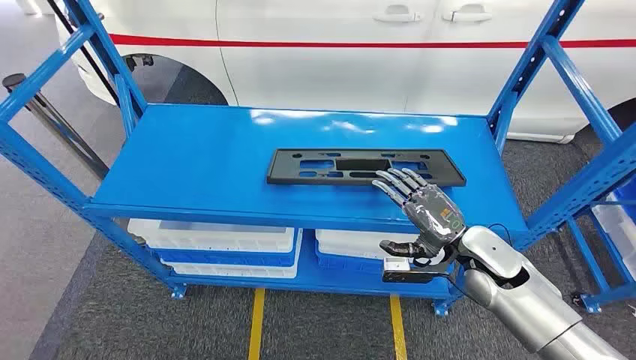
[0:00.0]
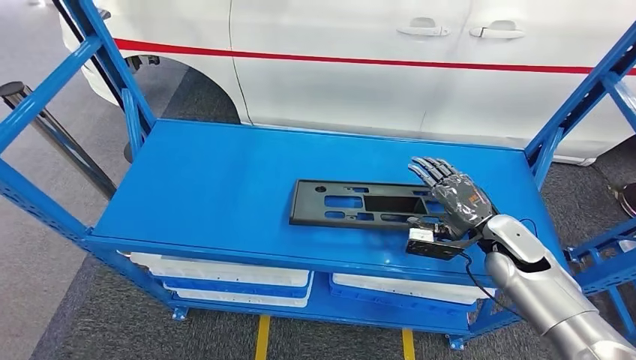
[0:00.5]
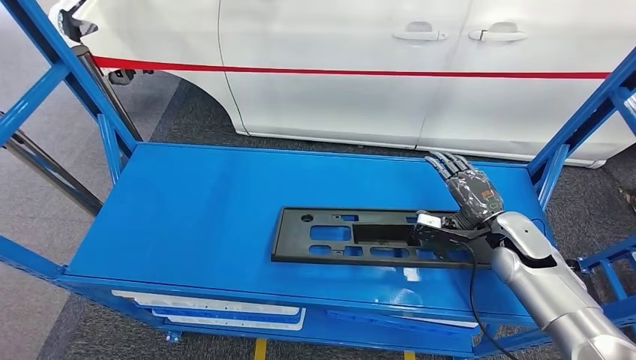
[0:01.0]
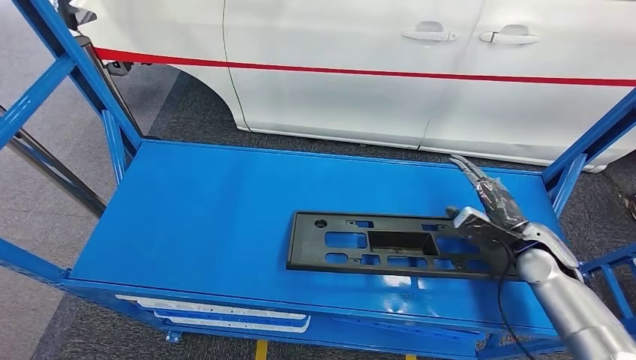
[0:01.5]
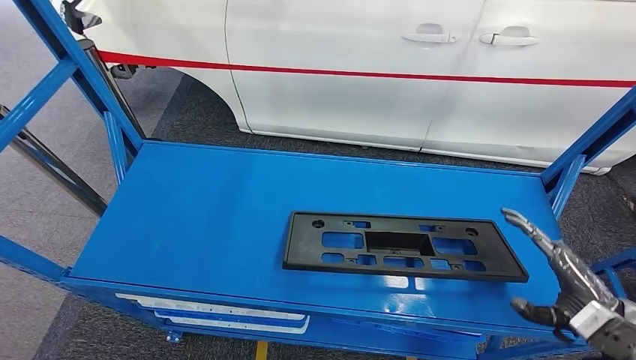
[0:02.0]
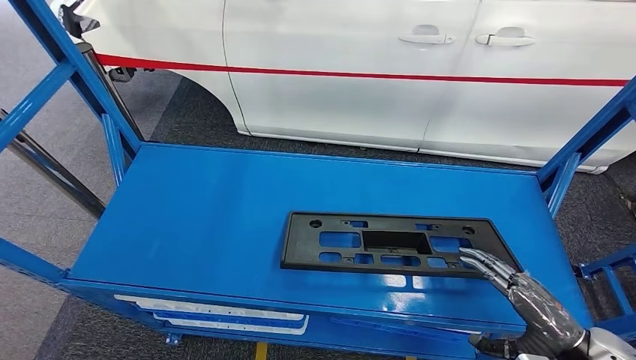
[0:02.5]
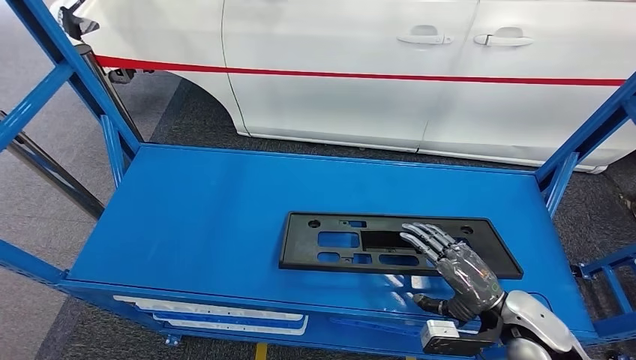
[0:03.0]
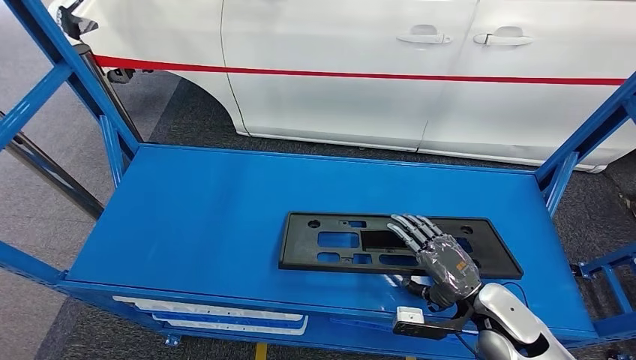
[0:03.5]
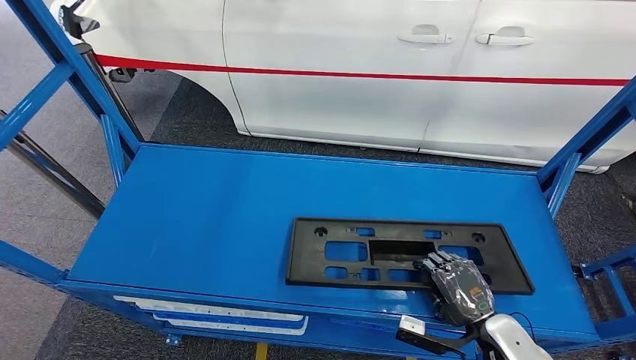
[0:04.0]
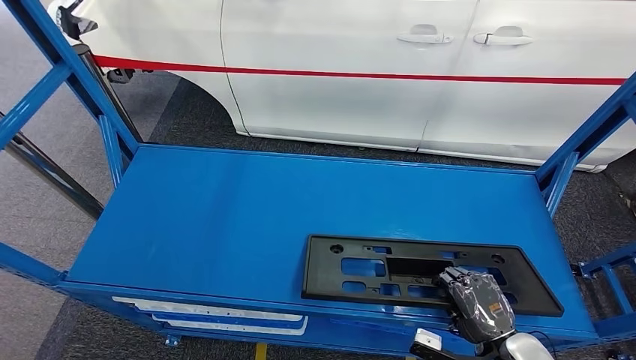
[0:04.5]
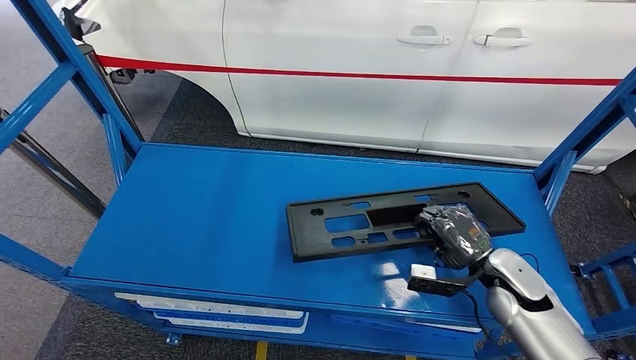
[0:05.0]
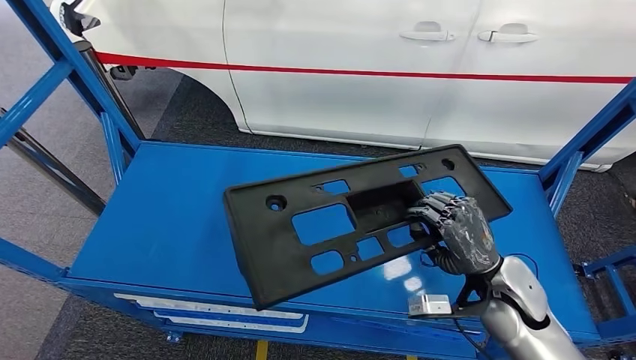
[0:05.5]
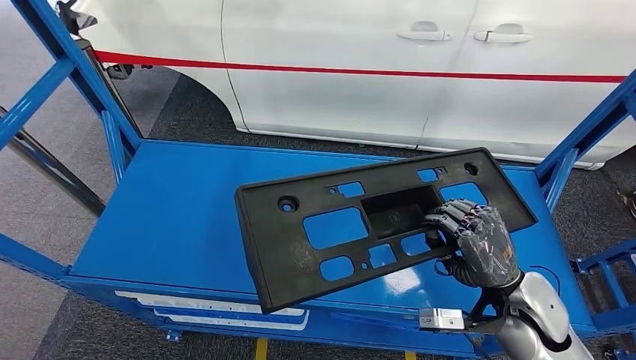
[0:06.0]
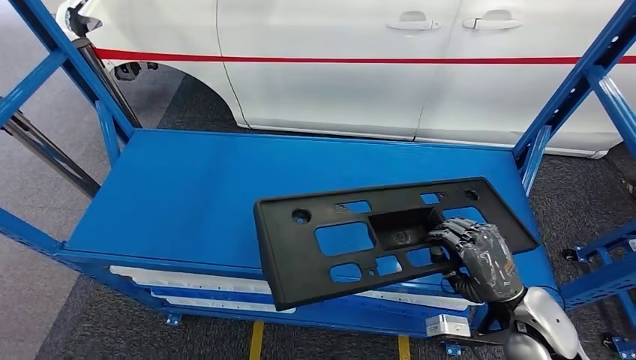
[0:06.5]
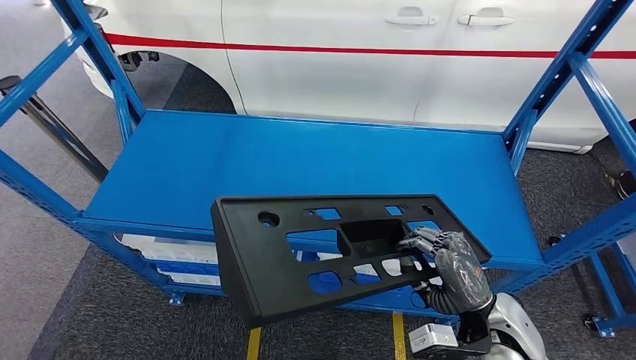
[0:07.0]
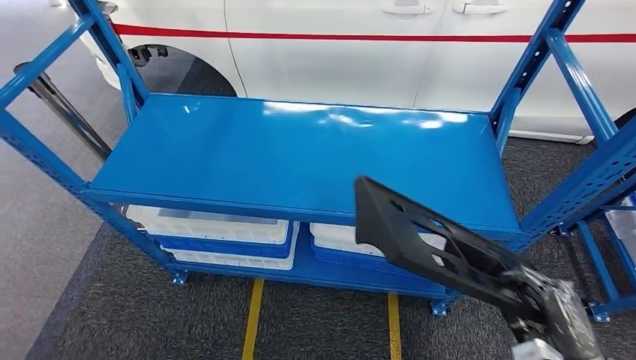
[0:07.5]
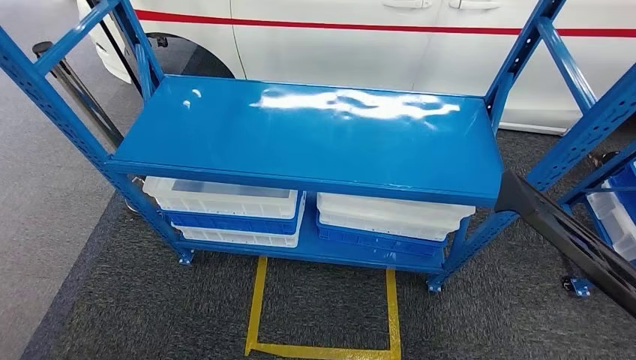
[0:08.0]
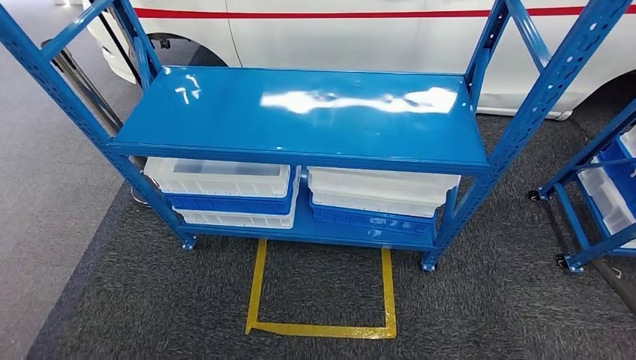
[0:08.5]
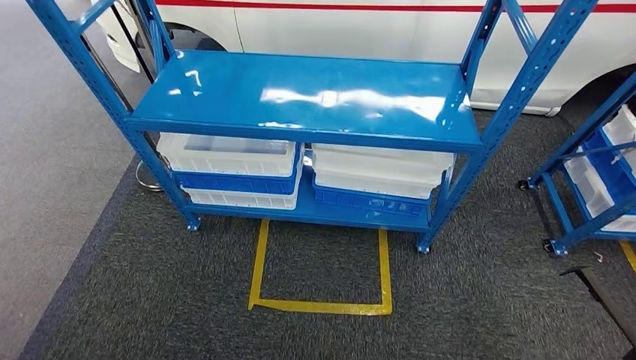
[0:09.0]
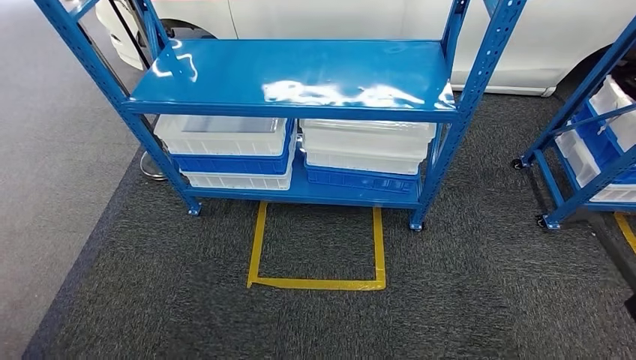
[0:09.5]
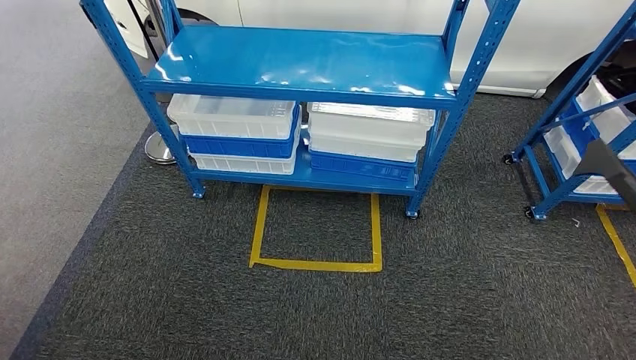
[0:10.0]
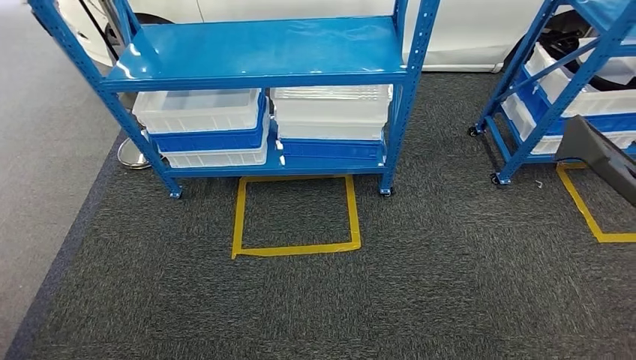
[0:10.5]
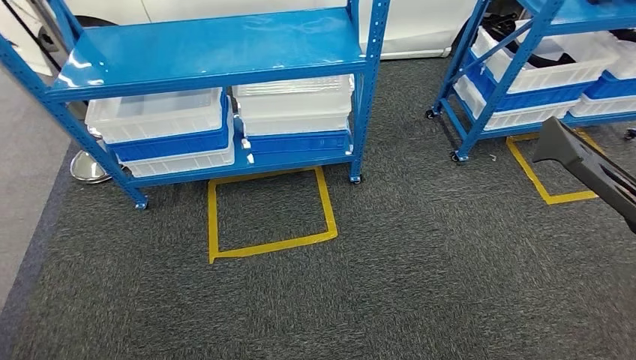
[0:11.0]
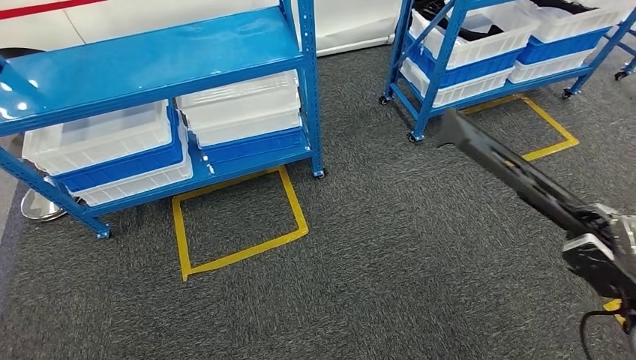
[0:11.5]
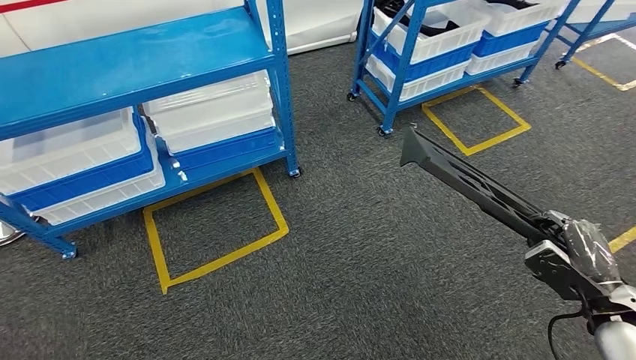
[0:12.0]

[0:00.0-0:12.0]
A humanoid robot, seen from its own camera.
Step, 0:00.0 to 0:07.0: Pick up the large material from the shelf.
0:02.0 to 0:04.0: The right hand goes approximately 15 cm to the left and downward.

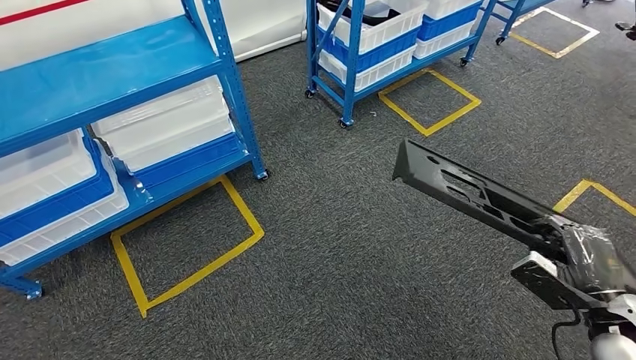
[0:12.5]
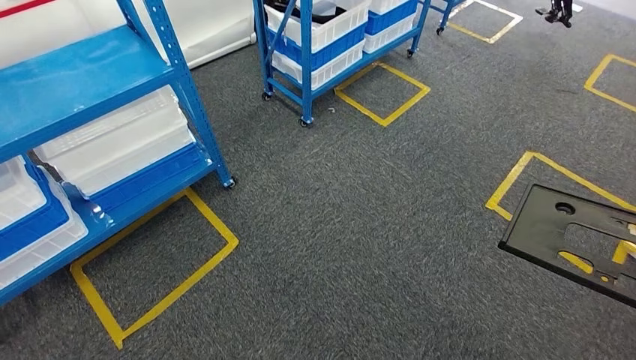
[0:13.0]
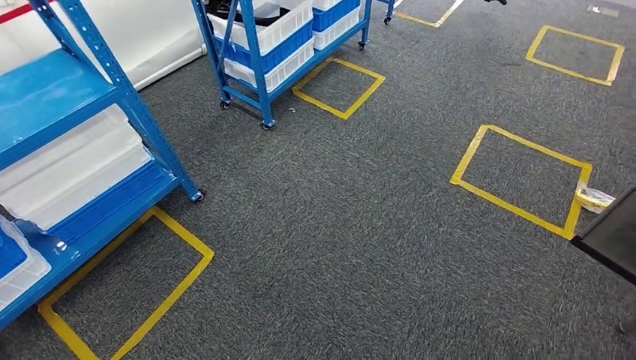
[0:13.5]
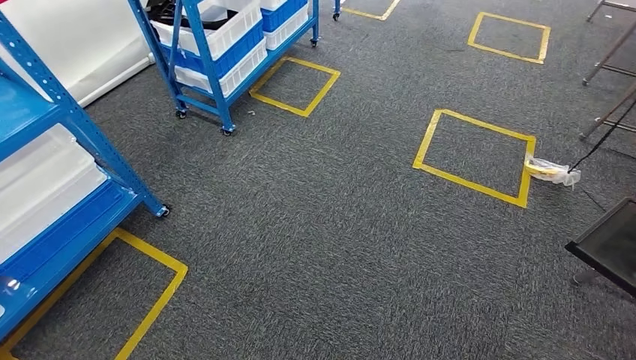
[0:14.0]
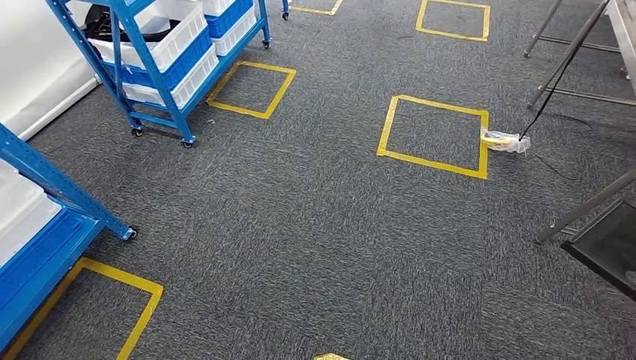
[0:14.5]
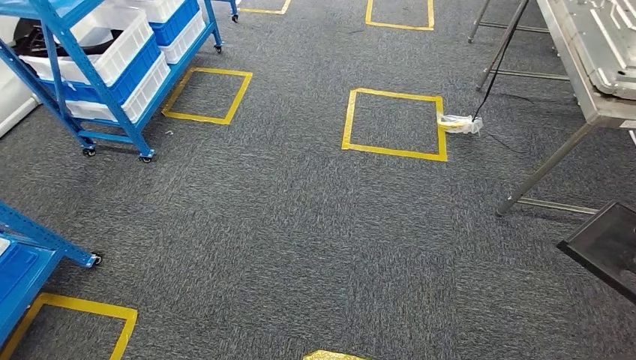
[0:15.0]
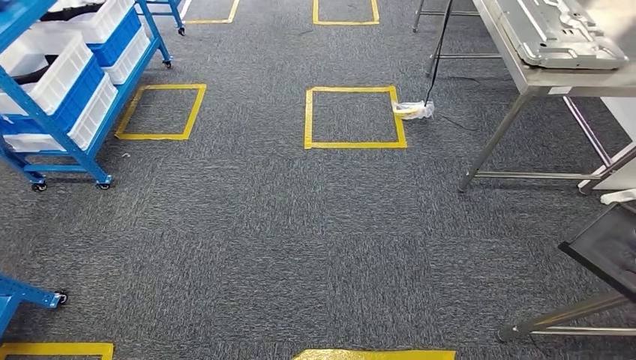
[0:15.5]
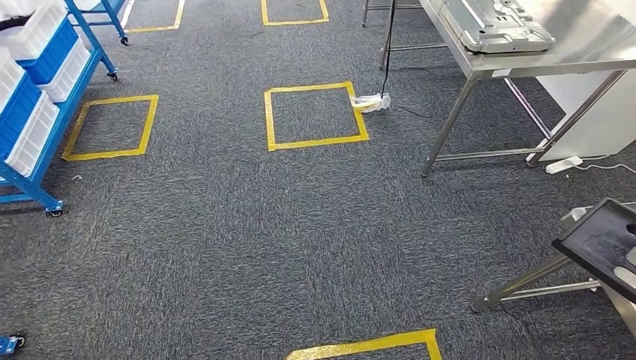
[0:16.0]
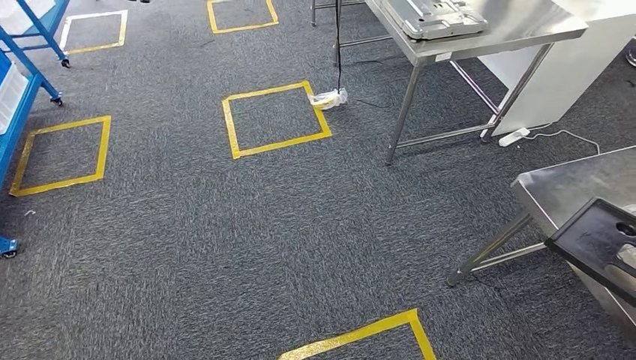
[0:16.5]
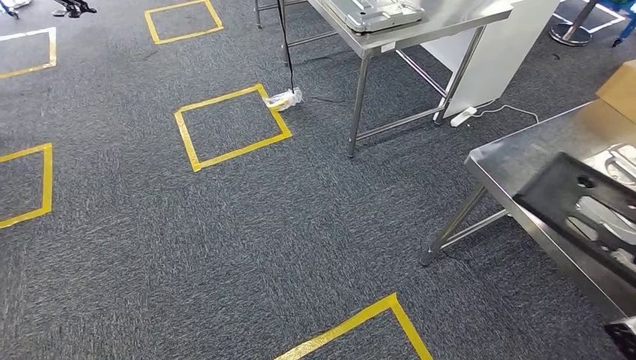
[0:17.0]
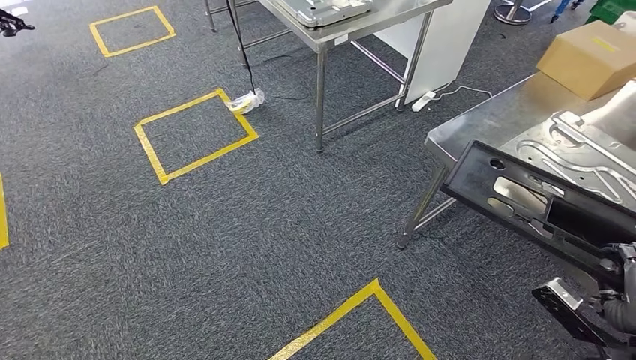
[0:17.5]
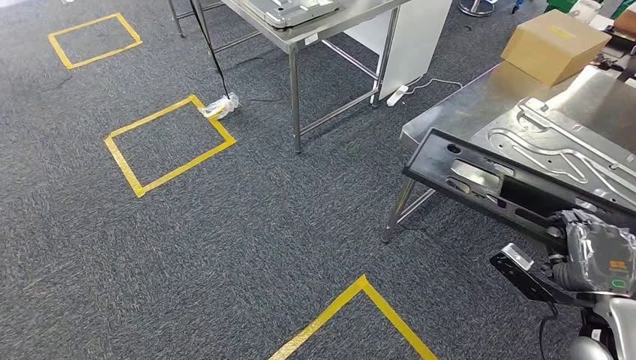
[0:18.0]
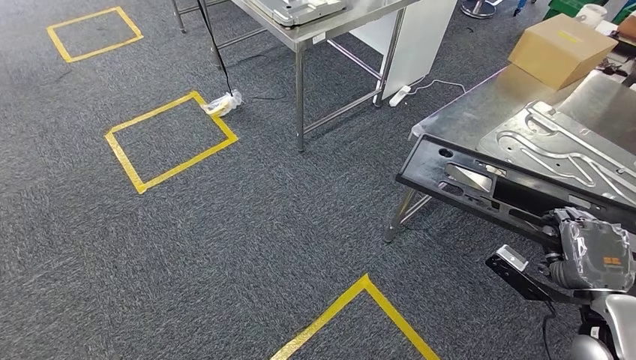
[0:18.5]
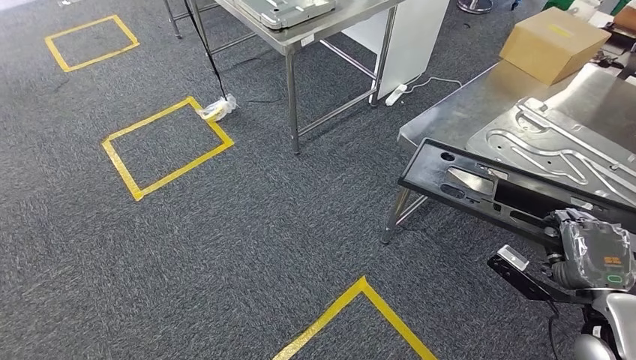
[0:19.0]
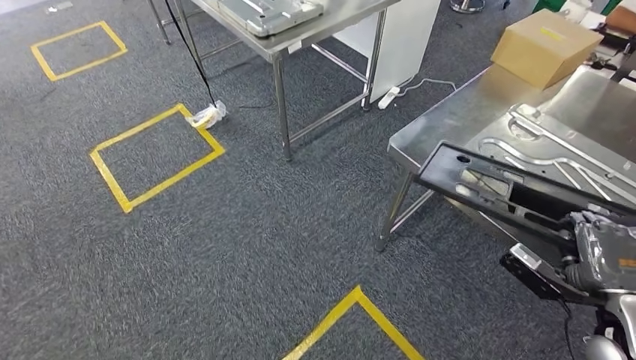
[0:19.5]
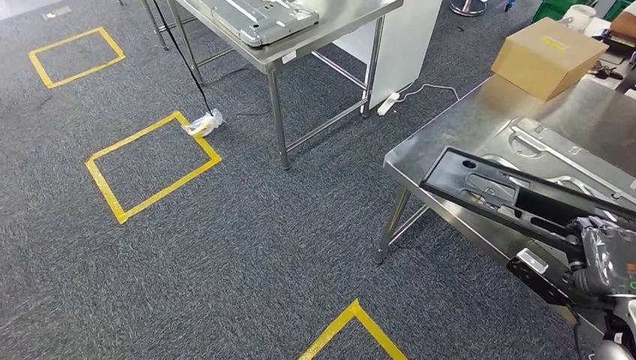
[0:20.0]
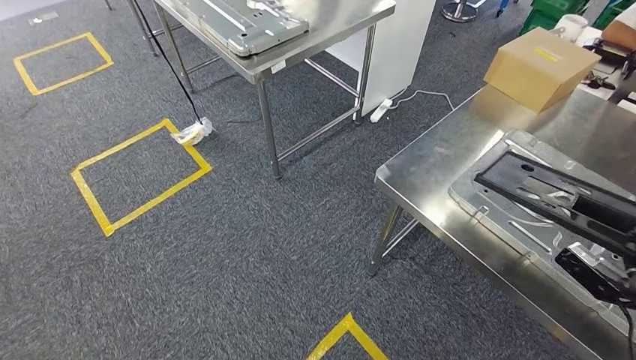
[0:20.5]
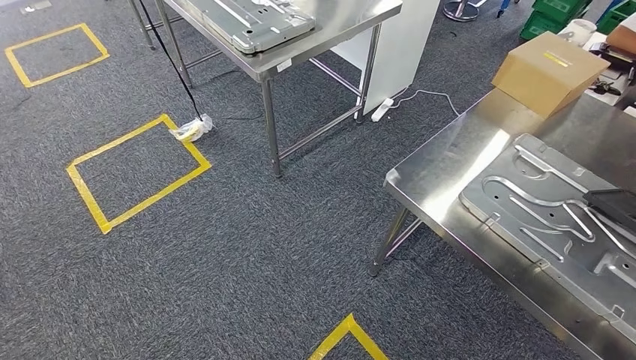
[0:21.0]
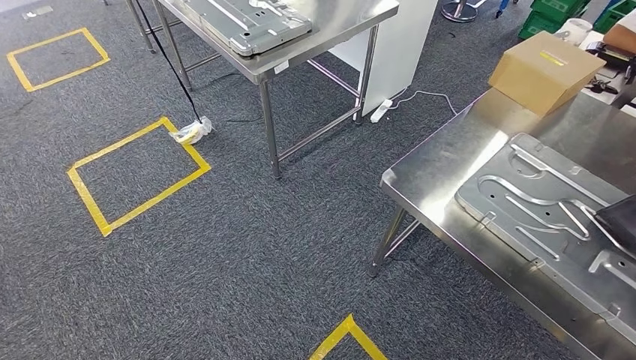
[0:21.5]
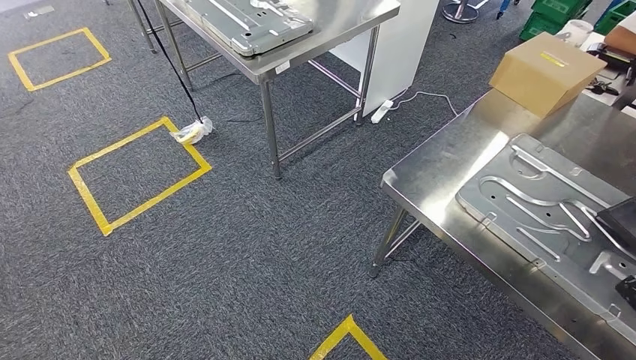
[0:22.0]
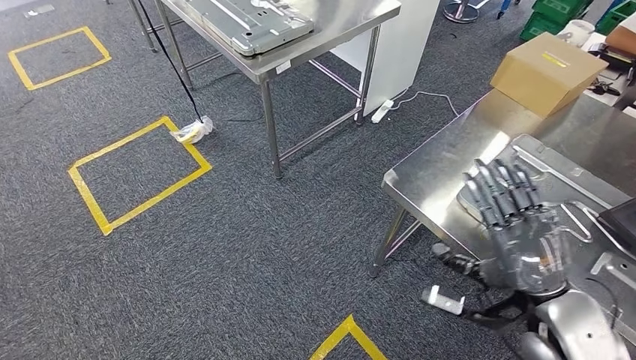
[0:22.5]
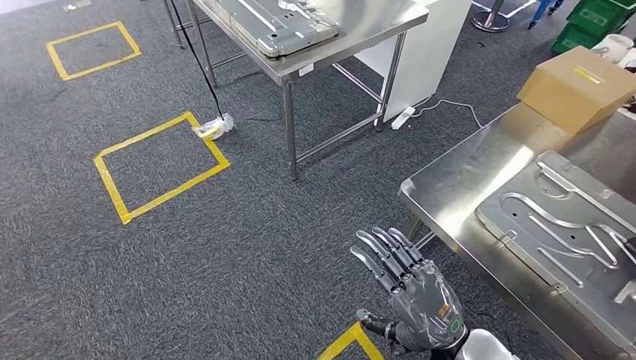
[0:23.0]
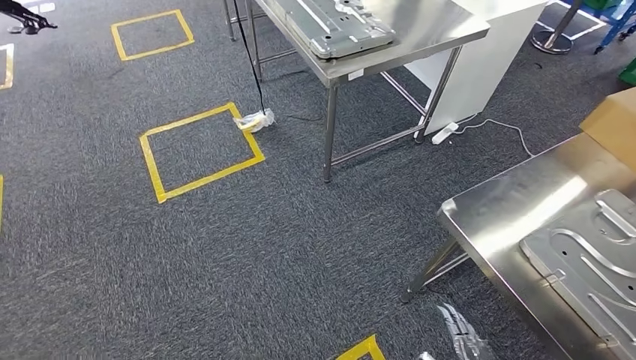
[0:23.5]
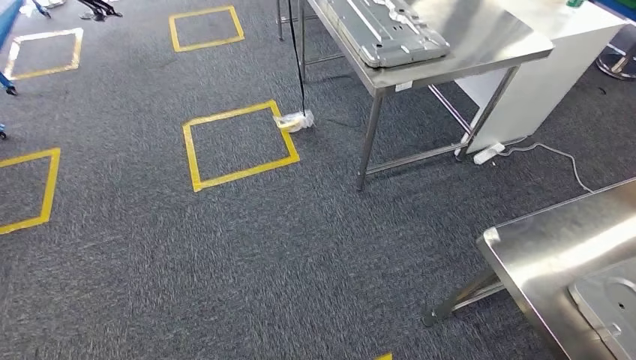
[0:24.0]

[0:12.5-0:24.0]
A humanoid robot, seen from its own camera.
Step, 0:12.5 to 0:19.5: Move the large material to the workbench.
